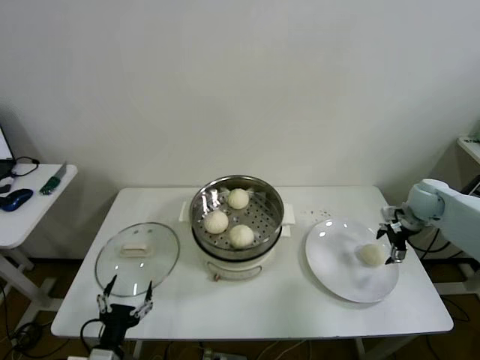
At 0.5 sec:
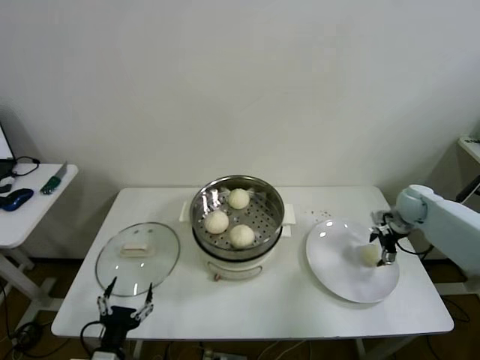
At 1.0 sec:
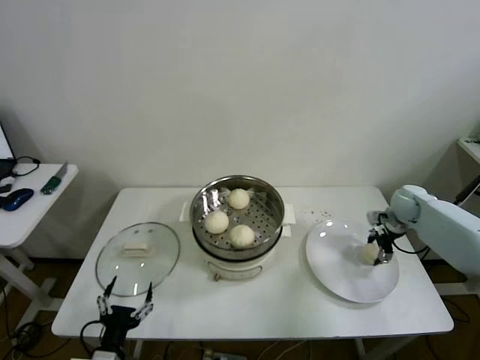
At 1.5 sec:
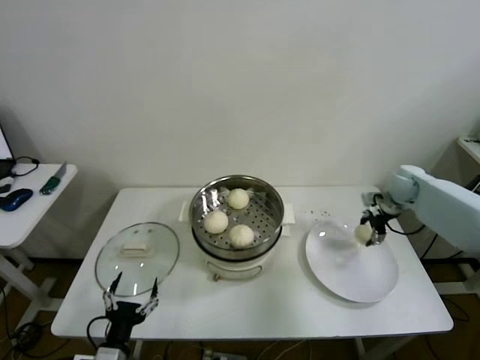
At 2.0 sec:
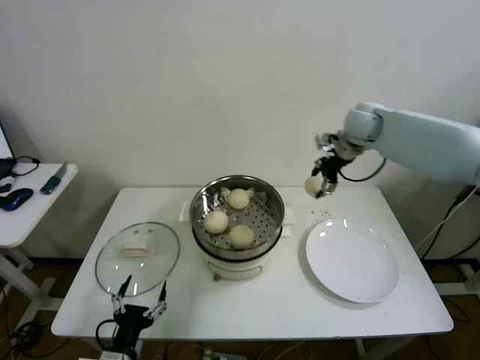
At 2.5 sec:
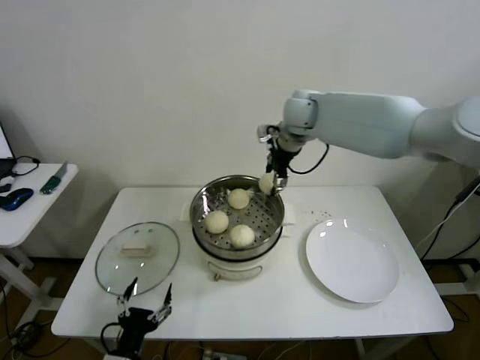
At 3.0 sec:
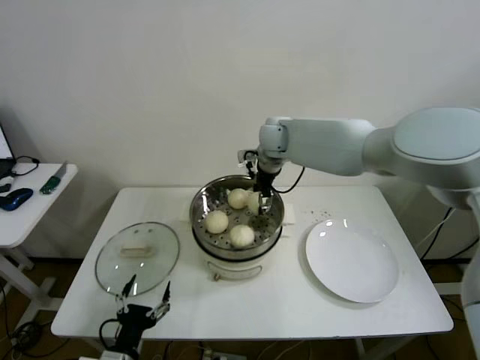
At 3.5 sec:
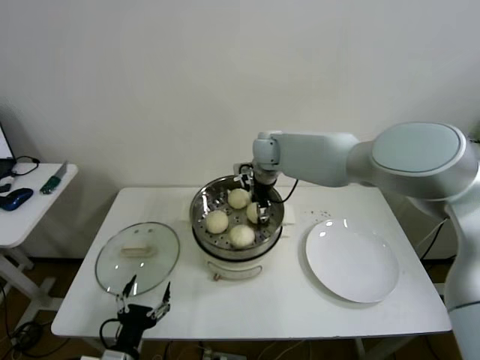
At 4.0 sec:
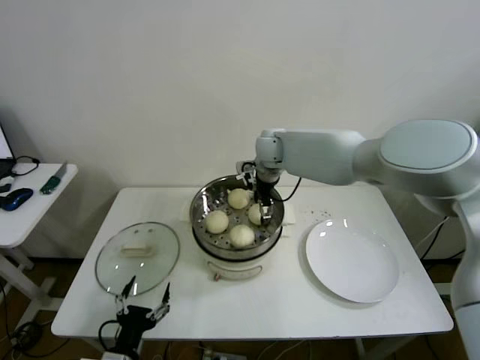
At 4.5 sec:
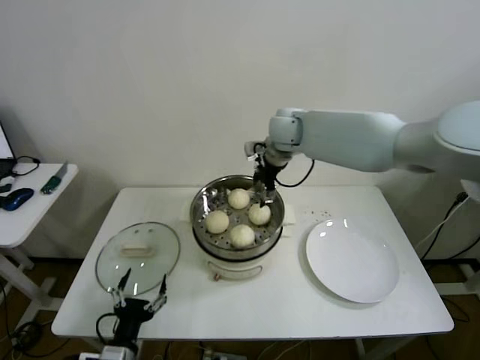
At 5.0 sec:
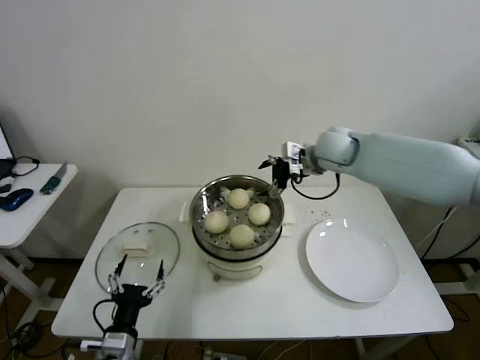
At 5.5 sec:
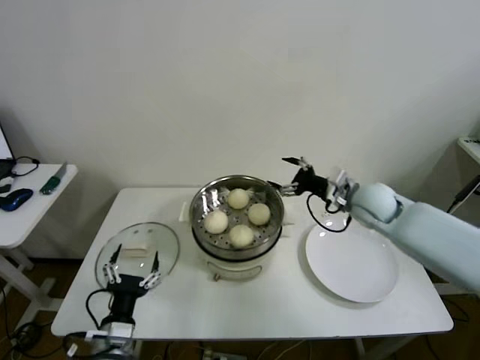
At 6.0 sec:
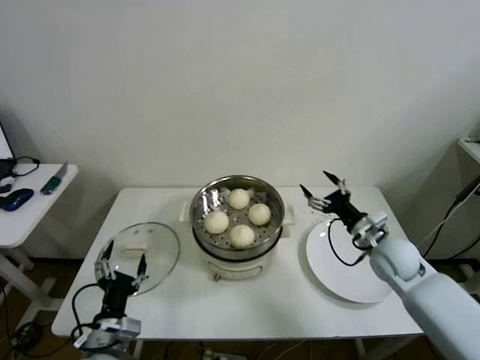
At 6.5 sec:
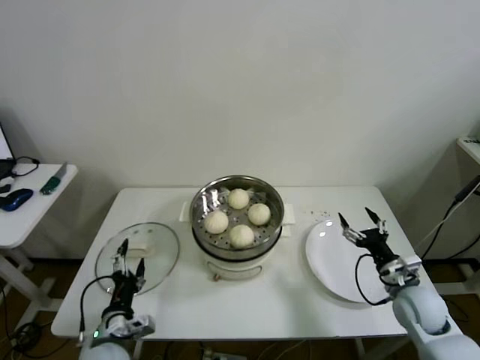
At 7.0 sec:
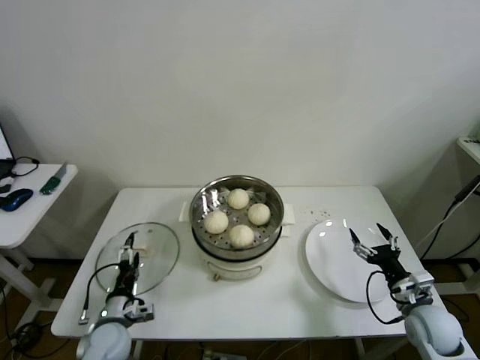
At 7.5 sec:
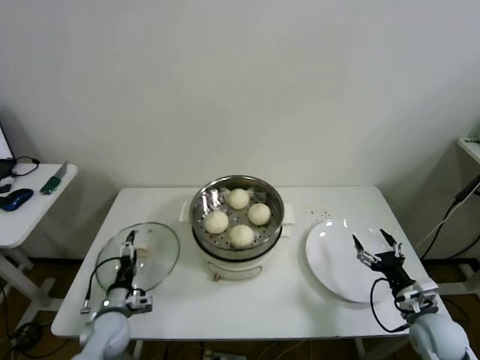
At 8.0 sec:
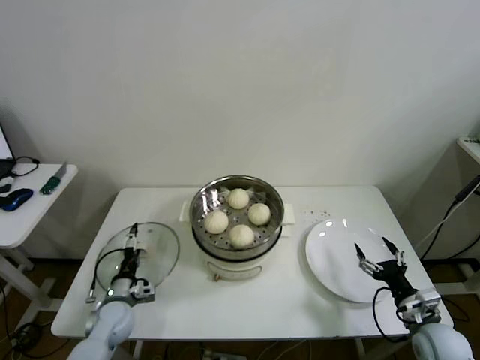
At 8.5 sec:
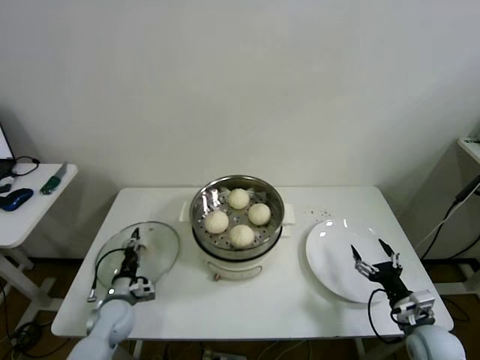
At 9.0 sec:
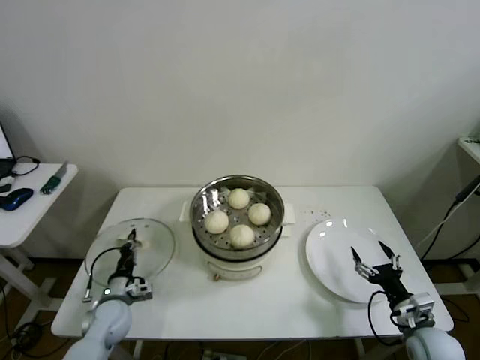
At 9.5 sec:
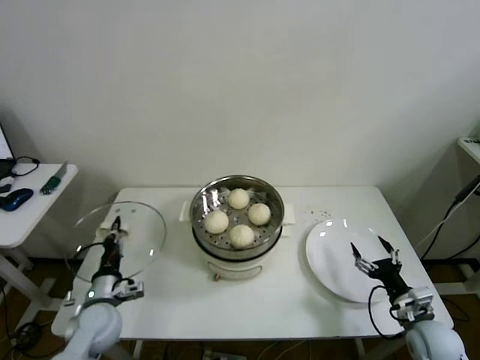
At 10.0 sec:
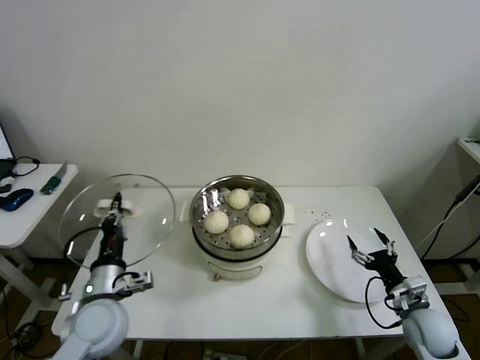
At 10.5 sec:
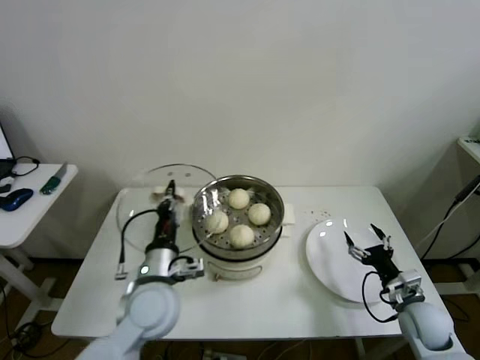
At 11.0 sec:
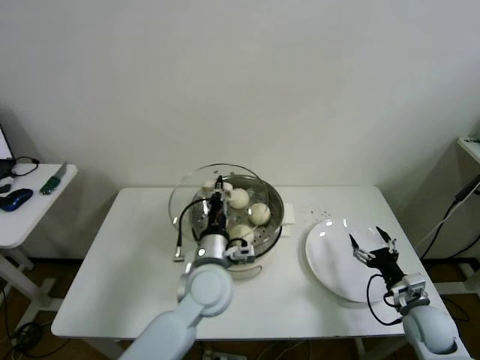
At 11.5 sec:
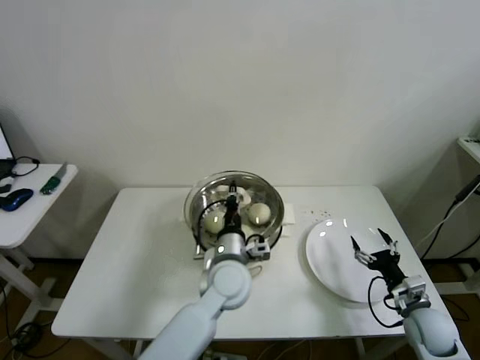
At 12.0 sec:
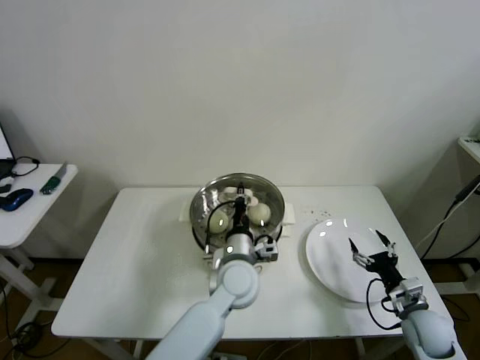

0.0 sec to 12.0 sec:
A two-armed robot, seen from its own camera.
Step, 1.5 sec to 3.5 sec: Place the baozi on the steamer with right gripper.
Step, 4.0 sec to 8.5 sec: Grasp the pot lid with left gripper.
0.0 sec to 2.0 sec: The right gripper goes about 25 cm to the left, upward and forward, and closes.
2.0 sec to 4.0 sec: The right gripper travels to the left by some 20 cm, and opens.
4.0 sec to 6.0 sec: The left gripper shifts roughly 5 cm forward. The right gripper is displaced to the right, backward and downward by about 35 cm.
6.0 sec to 8.0 sec: The left gripper heads forward, downward and to the left, covering some 20 cm; the right gripper heads backward, downward and to the right, covering roughly 20 cm.
8.0 sec to 10.0 sec: The left gripper goes some 15 cm upward, and closes its fingers.
10.0 sec to 12.0 sec: The left gripper travels to the right by roughly 25 cm.

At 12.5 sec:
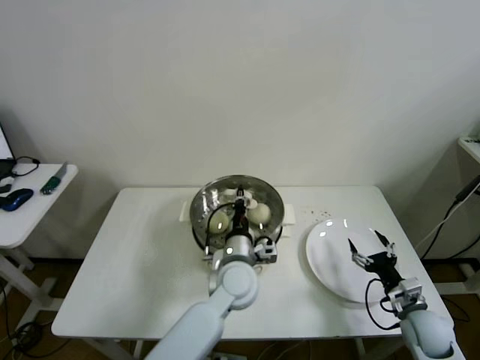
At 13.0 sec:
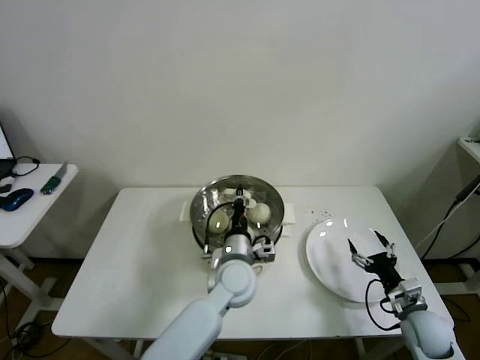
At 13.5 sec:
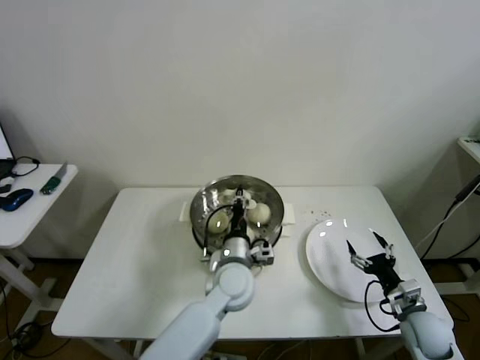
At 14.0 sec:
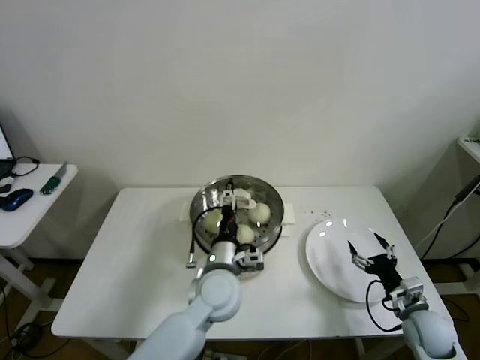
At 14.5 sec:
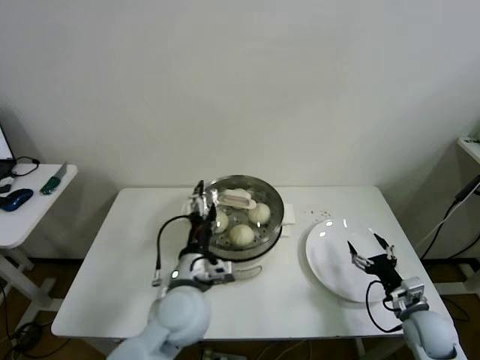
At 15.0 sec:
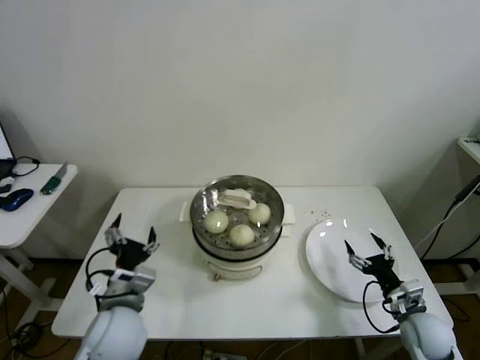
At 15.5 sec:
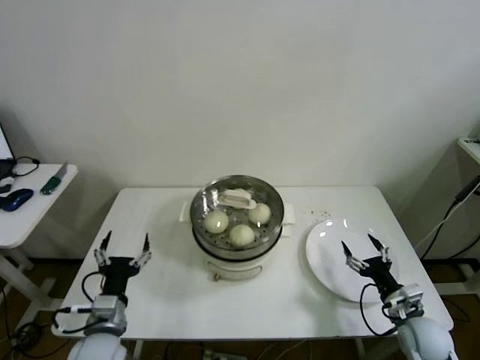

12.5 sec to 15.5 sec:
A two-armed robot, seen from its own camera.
12.5 sec to 14.0 sec: The left gripper opens up.
14.0 sec to 15.5 sec: The left gripper travels to the left and backward by some 25 cm.
